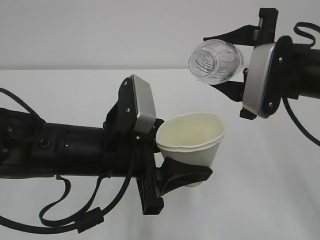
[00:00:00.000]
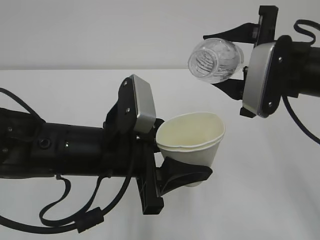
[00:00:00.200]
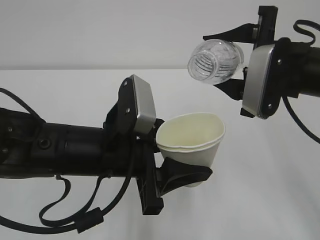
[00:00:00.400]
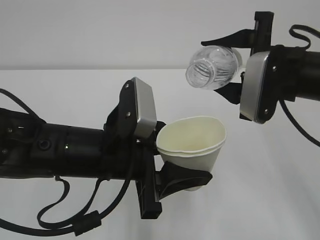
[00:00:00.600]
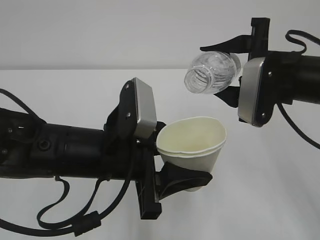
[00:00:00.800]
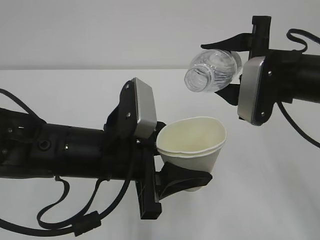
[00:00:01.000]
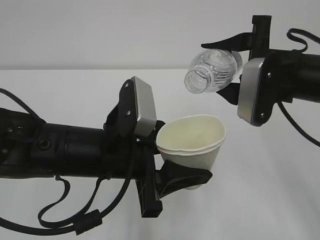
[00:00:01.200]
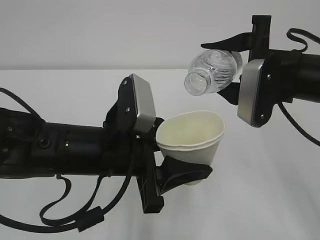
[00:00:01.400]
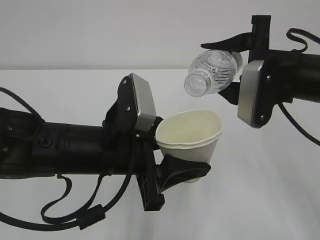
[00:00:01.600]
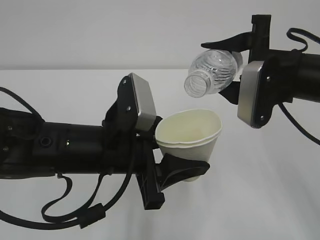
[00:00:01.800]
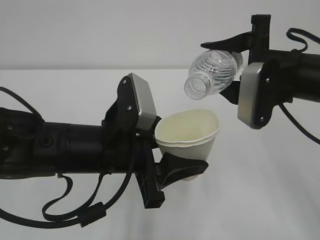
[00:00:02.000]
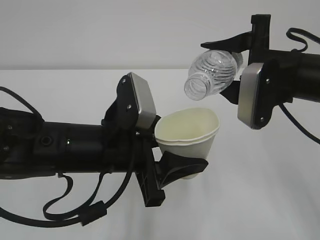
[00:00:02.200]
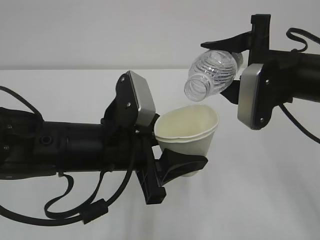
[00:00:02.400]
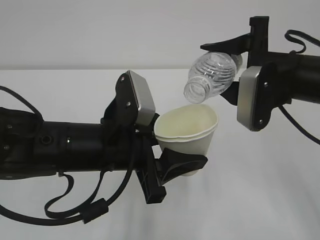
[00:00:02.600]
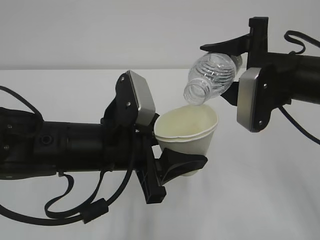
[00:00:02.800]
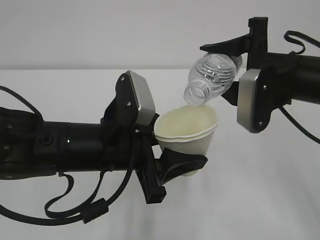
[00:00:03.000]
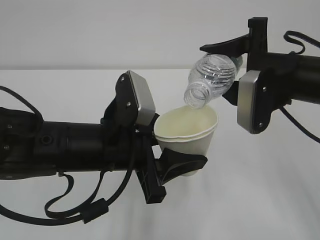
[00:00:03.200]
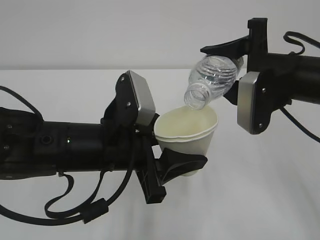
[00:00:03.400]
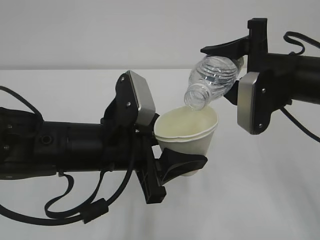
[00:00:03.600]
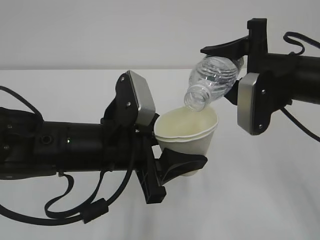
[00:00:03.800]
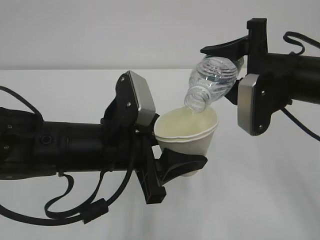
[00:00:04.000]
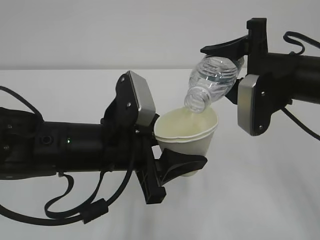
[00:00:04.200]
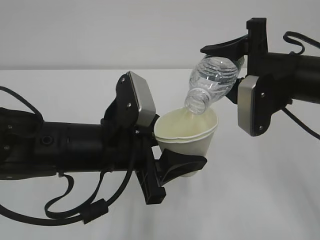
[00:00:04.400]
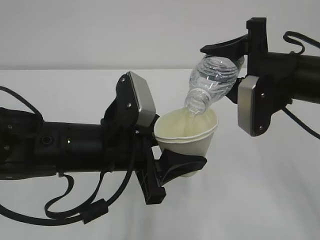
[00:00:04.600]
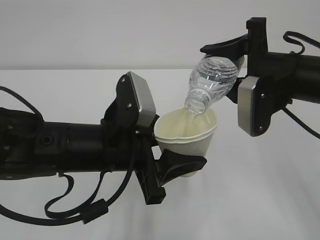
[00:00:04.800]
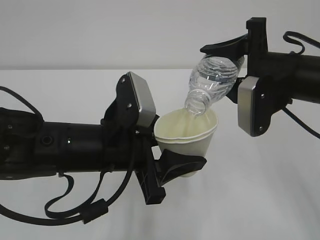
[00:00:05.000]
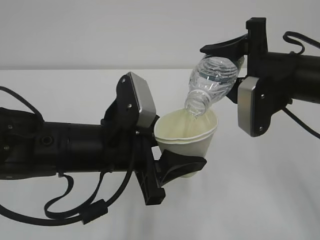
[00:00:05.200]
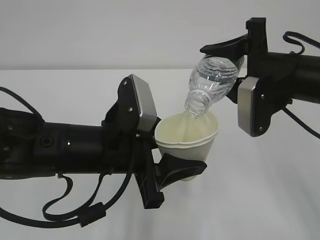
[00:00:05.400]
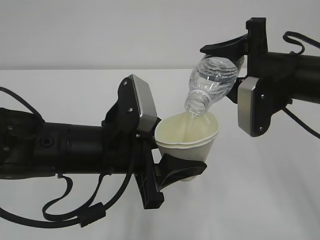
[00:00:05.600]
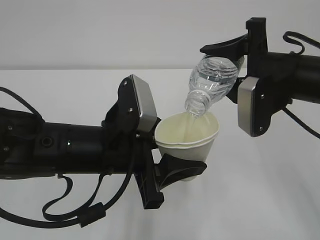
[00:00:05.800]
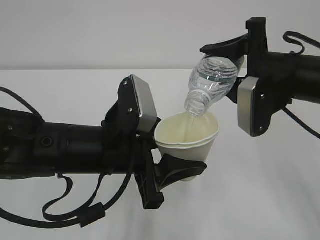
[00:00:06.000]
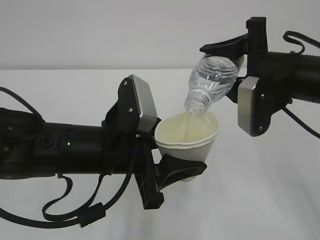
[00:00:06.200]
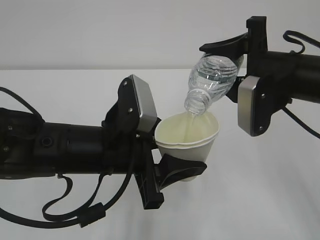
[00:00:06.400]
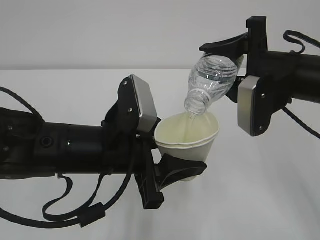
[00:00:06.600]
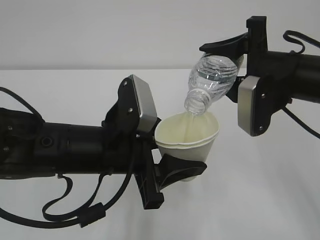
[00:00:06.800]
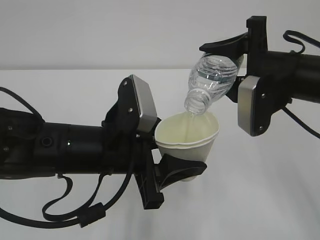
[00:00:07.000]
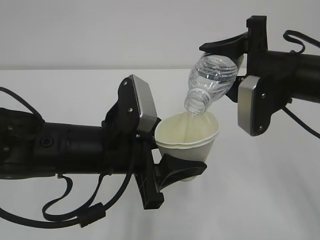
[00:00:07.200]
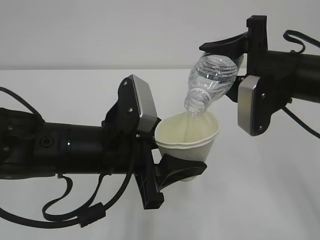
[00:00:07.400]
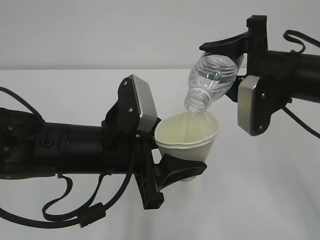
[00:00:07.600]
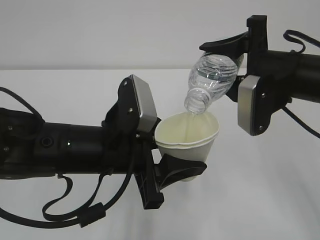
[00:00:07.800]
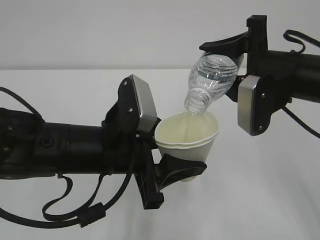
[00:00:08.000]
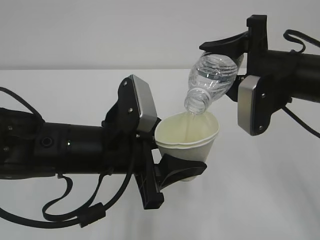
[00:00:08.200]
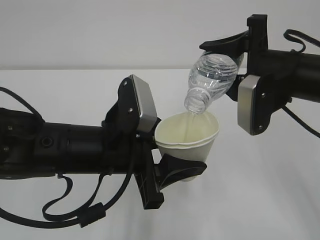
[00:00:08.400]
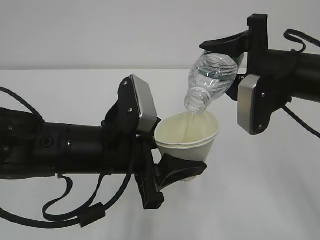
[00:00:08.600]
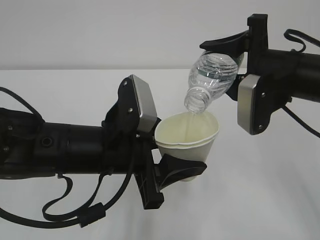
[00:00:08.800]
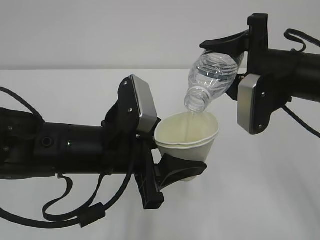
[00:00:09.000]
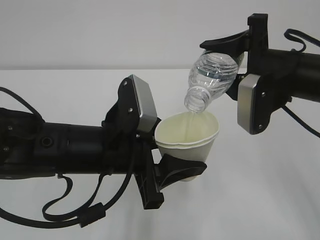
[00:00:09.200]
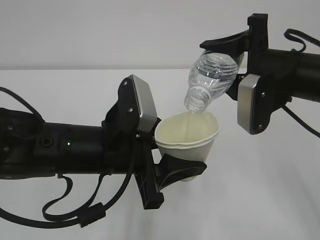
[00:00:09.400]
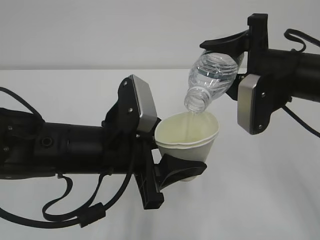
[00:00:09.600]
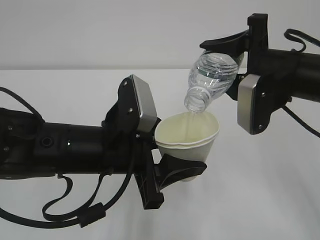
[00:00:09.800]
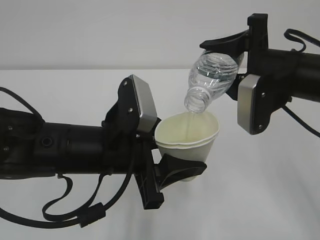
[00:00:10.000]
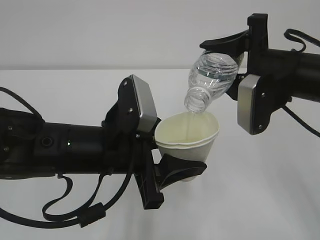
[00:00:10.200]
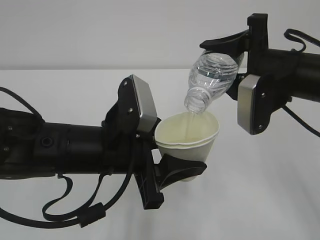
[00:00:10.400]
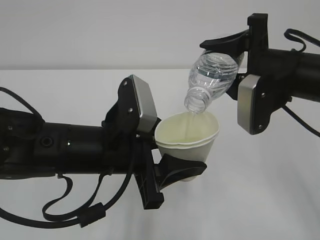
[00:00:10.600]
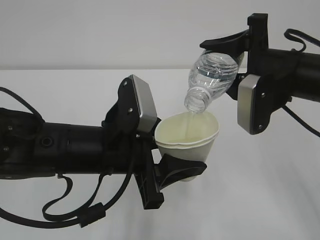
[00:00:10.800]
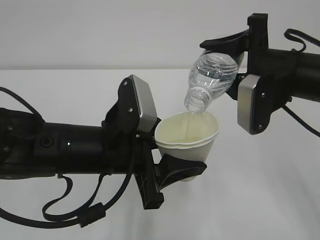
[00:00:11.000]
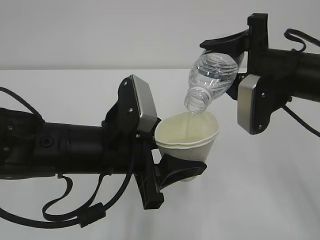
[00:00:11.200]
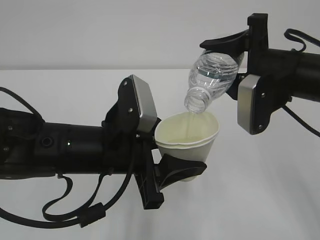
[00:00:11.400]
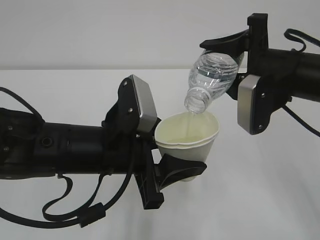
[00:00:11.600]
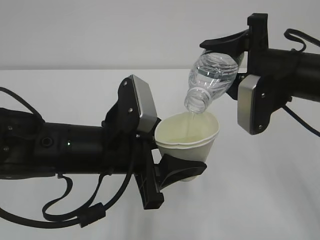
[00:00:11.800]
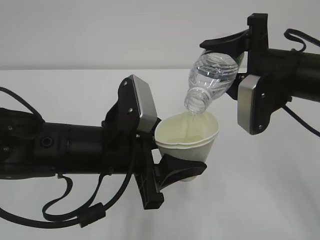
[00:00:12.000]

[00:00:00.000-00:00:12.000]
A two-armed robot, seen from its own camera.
00:00:00.000 to 00:00:03.000: There are only small adjustments of the grippers.
00:00:03.000 to 00:00:04.400: There are only small adjustments of the grippers.
00:00:04.400 to 00:00:12.000: The two grippers keep their place.

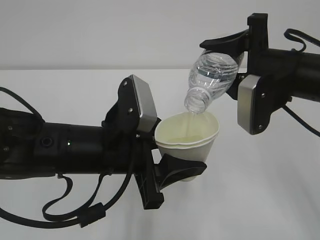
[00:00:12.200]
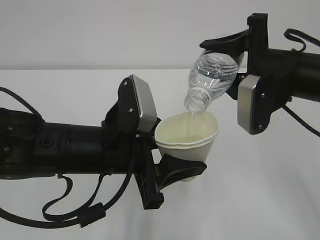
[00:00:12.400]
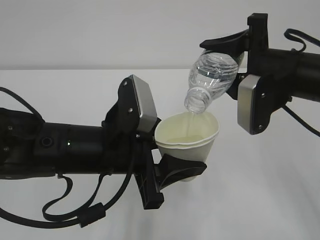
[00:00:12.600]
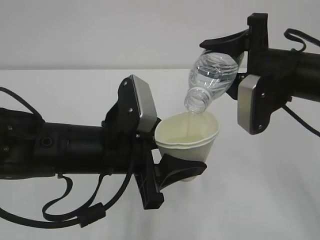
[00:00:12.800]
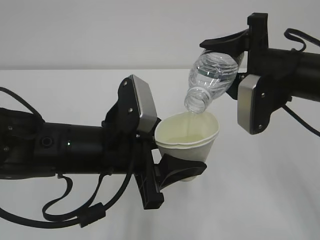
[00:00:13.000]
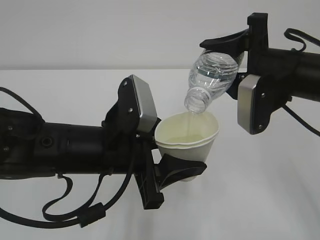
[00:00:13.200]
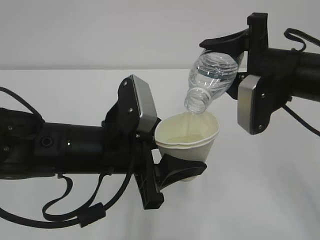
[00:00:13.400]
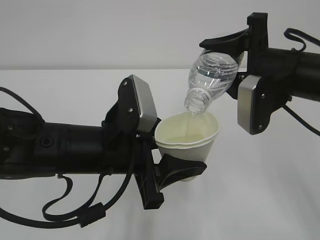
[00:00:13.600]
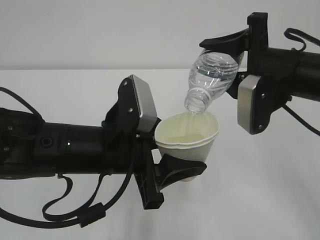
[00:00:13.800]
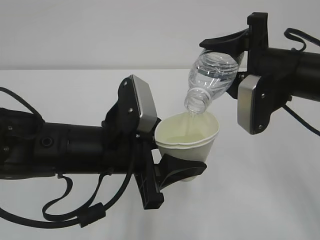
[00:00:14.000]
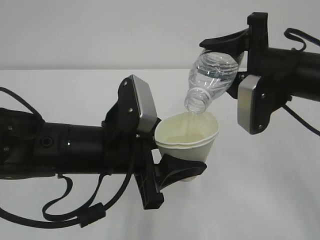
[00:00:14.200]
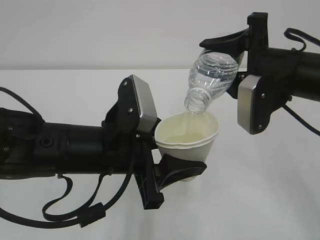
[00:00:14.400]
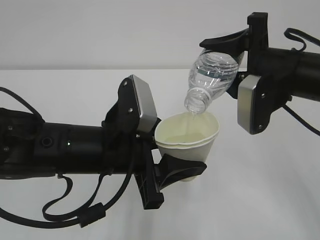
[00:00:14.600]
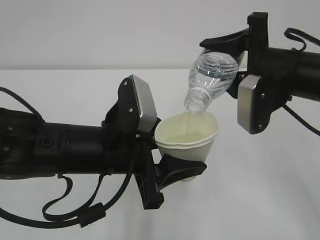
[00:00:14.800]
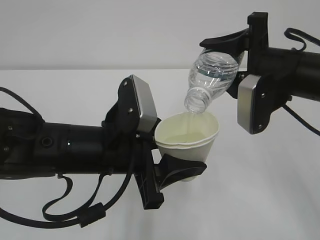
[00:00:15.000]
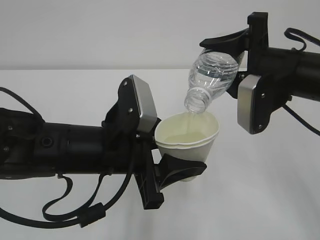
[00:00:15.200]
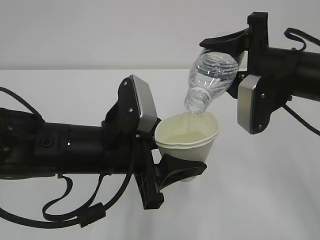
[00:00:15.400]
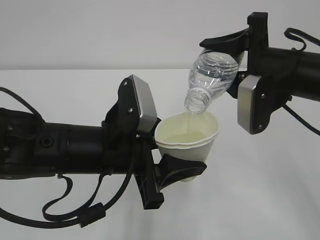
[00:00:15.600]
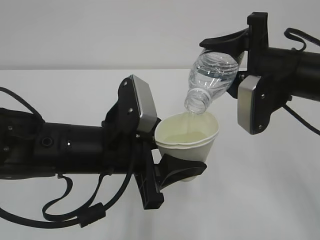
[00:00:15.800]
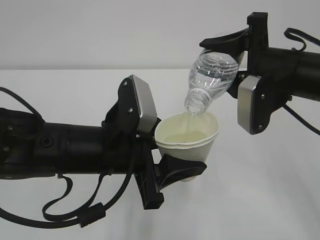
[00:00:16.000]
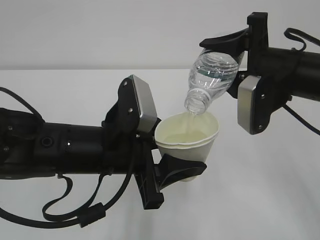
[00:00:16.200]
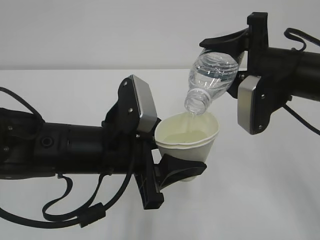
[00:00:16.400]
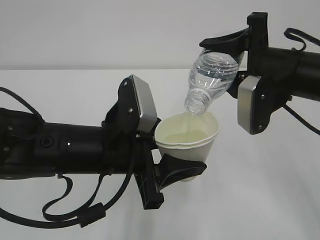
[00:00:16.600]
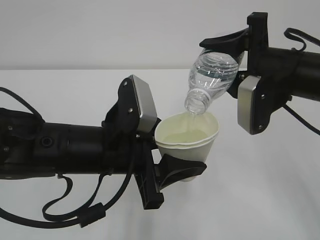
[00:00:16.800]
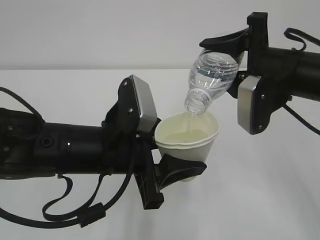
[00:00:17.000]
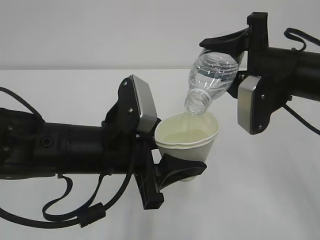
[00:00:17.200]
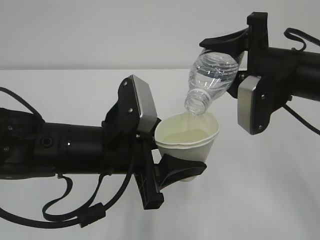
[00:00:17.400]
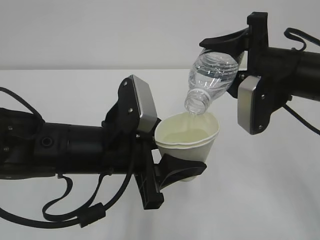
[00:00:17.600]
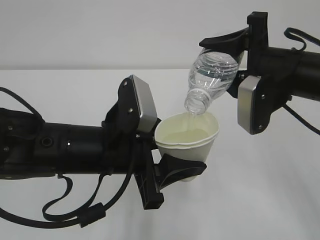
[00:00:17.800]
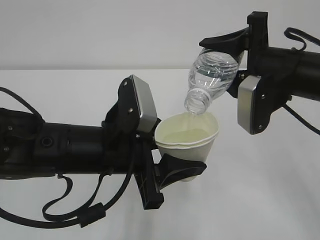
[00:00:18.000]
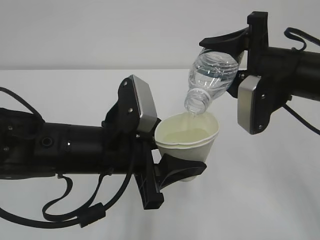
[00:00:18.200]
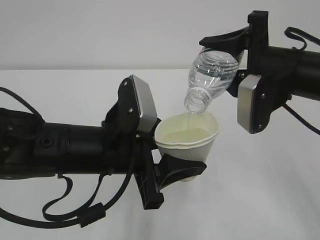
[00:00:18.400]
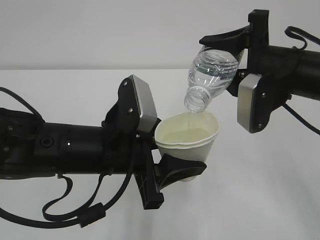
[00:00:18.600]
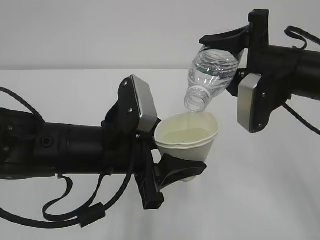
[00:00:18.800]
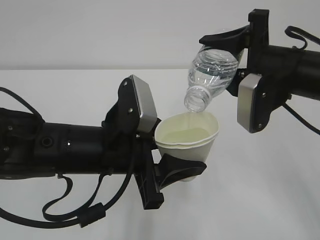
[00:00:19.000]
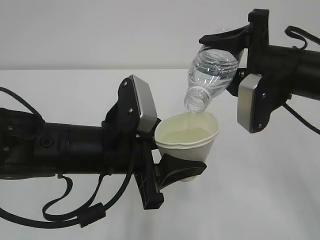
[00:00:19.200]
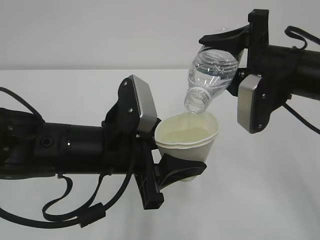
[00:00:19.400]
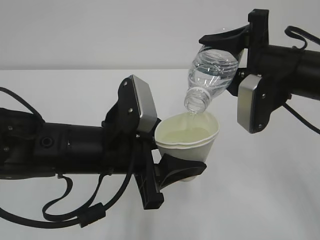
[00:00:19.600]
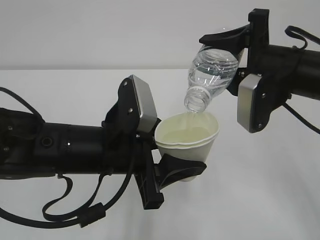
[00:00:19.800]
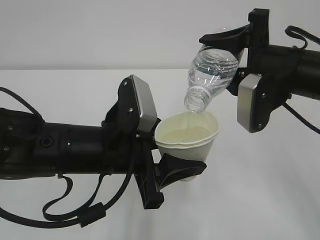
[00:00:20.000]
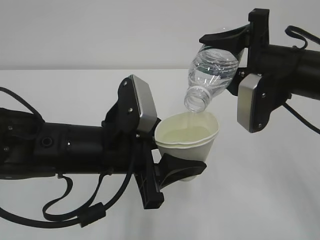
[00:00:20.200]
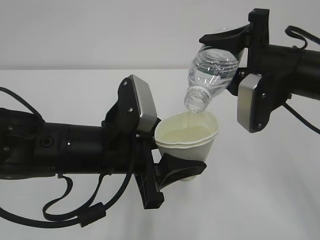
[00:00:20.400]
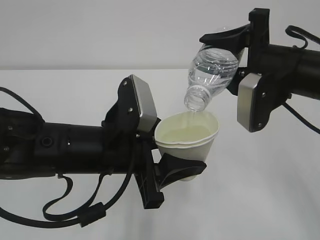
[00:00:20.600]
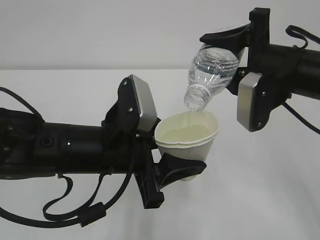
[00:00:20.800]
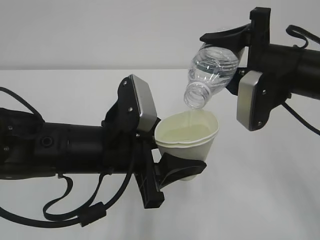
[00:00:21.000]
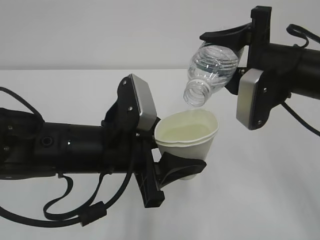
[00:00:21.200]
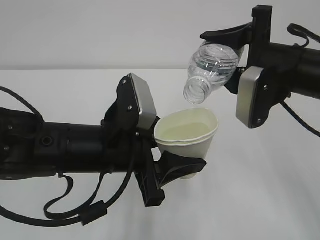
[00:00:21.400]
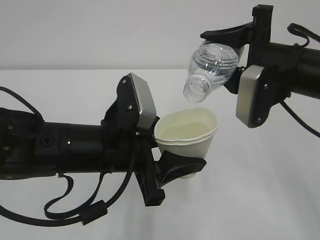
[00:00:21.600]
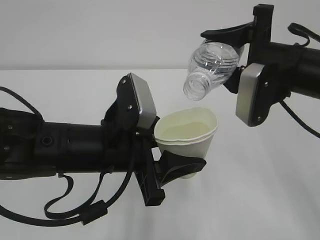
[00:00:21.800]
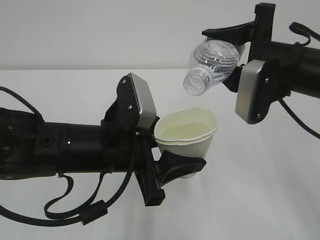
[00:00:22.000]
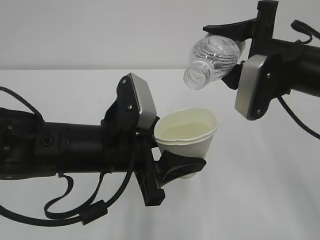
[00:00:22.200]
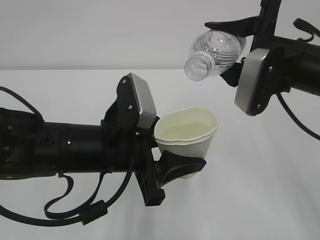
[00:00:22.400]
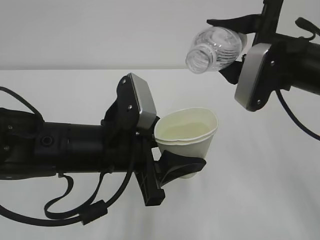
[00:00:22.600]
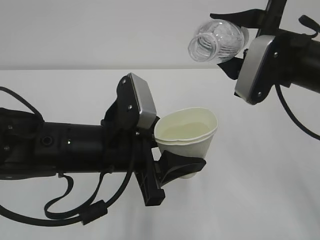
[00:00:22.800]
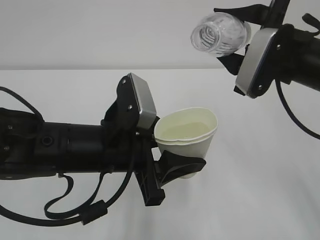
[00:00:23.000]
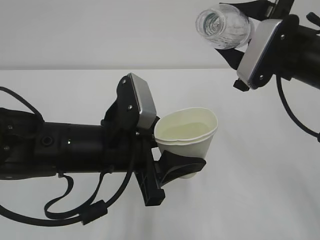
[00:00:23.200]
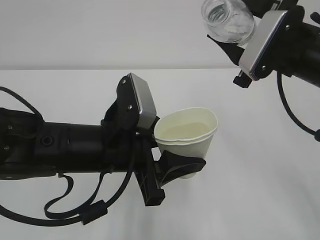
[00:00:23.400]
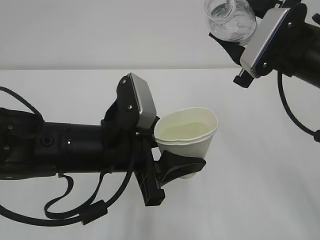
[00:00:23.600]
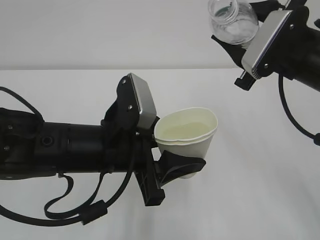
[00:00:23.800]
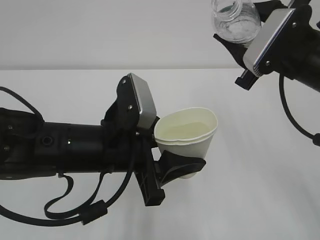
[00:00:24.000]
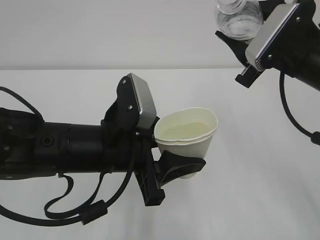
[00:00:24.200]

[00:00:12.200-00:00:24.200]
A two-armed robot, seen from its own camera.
00:00:12.200 to 00:00:21.200: Both grippers stay put.
00:00:21.200 to 00:00:22.600: The grippers move only a little.
